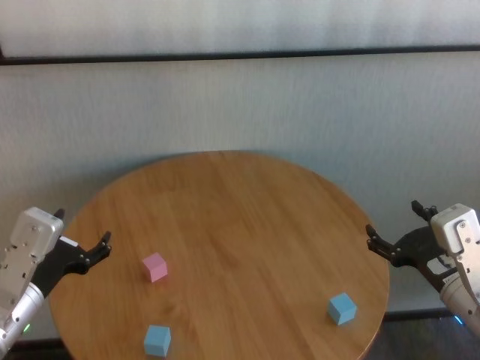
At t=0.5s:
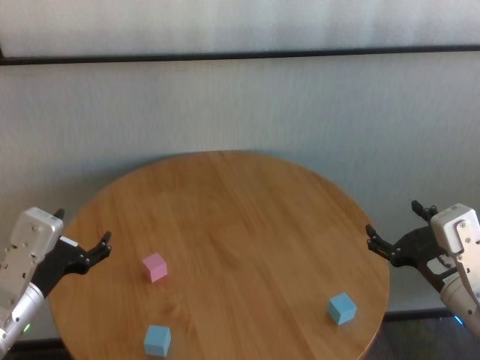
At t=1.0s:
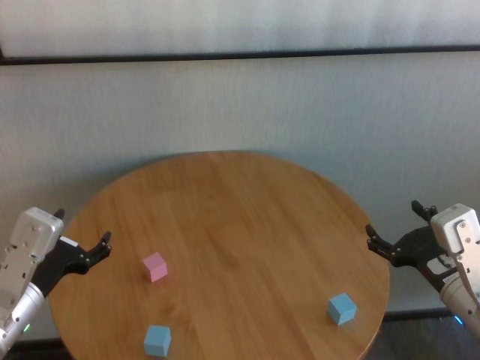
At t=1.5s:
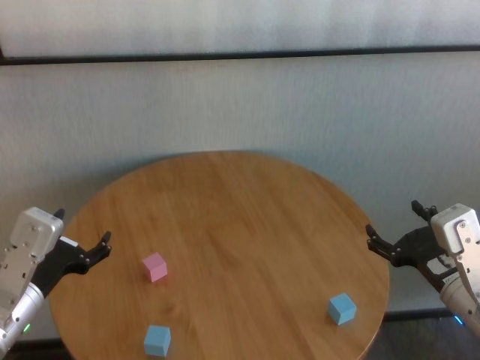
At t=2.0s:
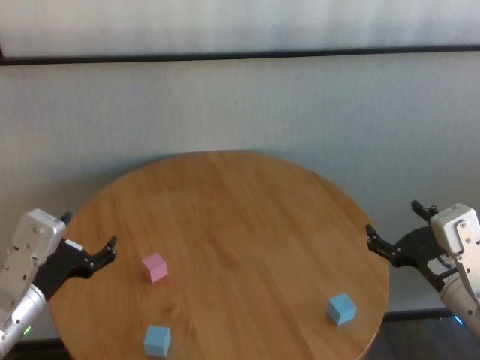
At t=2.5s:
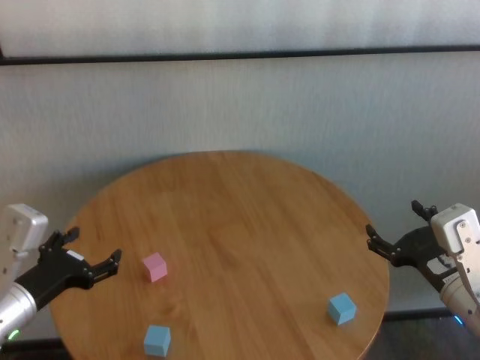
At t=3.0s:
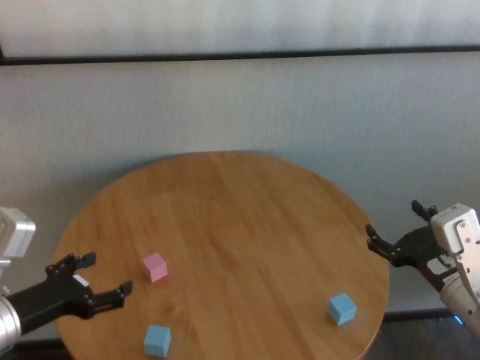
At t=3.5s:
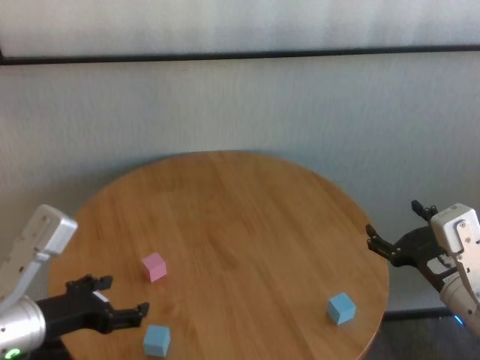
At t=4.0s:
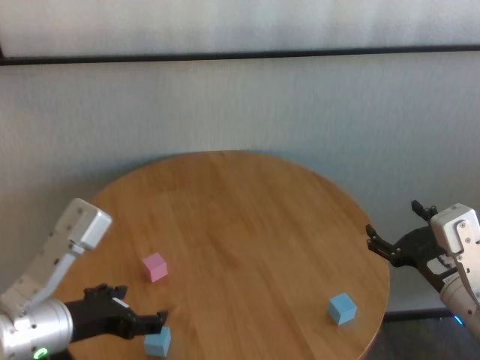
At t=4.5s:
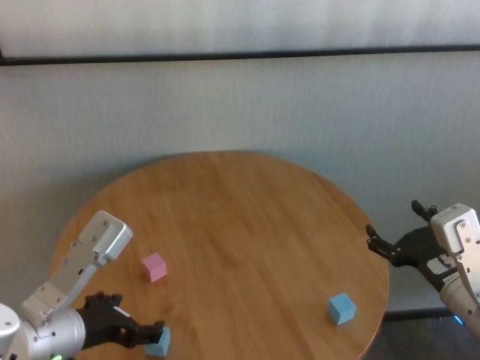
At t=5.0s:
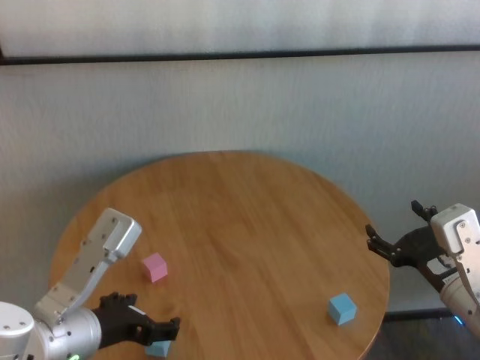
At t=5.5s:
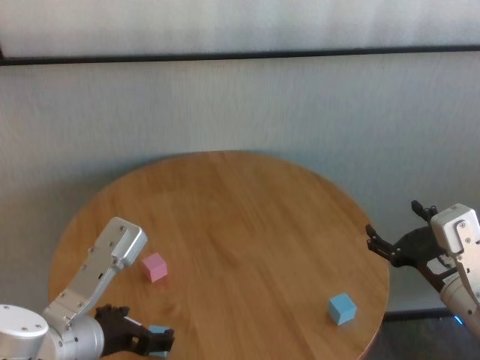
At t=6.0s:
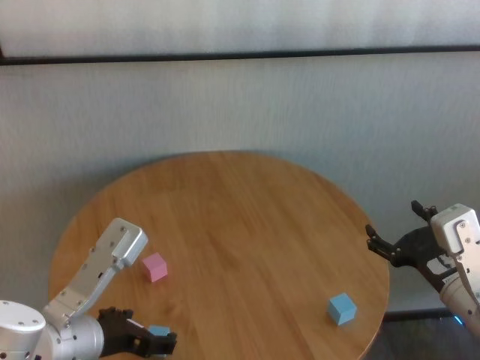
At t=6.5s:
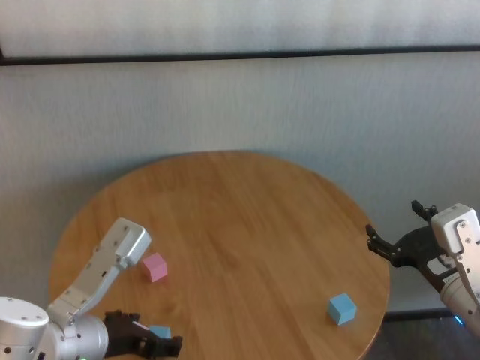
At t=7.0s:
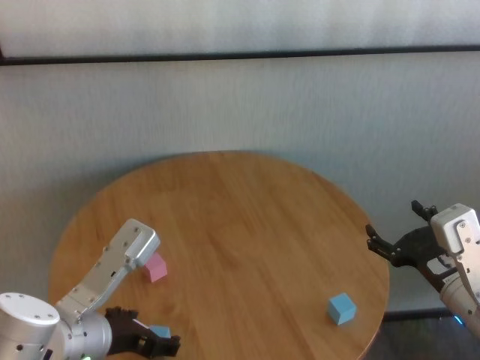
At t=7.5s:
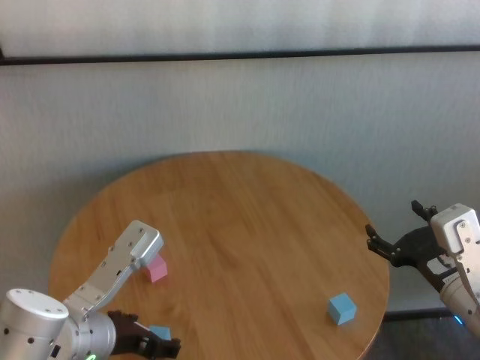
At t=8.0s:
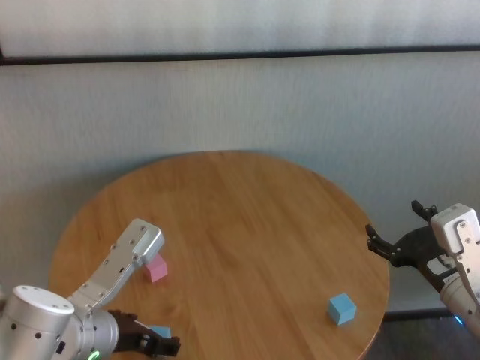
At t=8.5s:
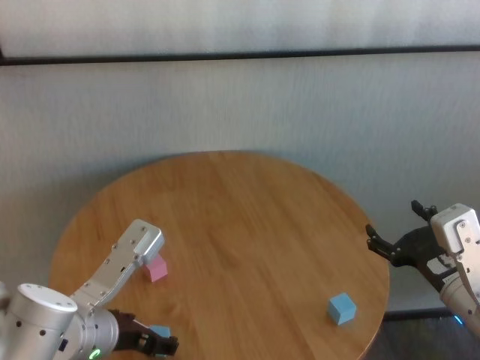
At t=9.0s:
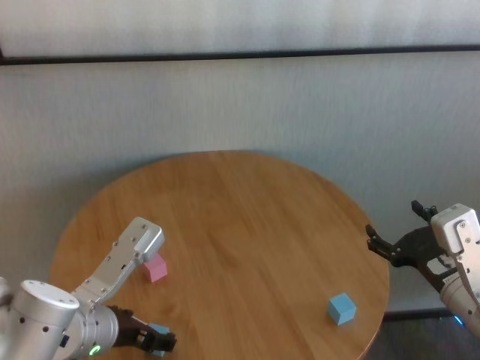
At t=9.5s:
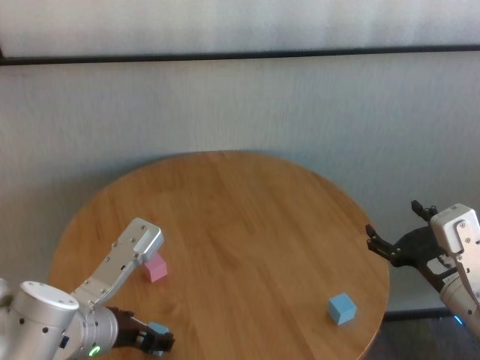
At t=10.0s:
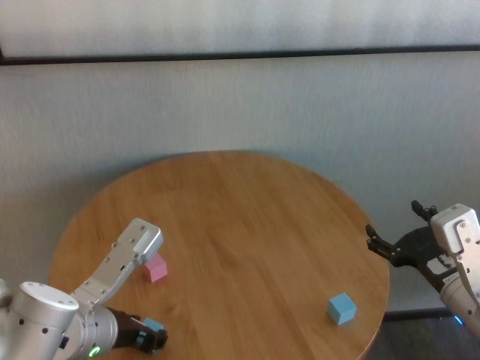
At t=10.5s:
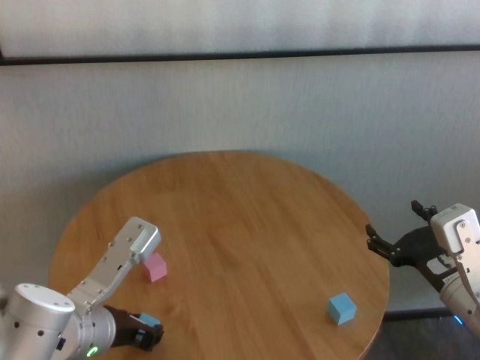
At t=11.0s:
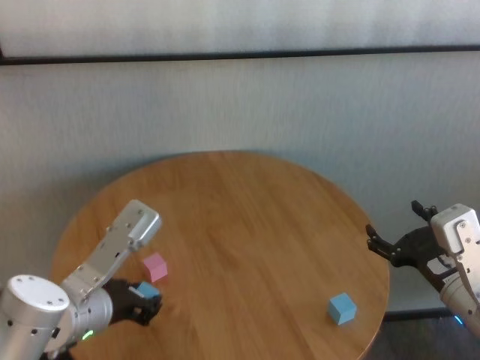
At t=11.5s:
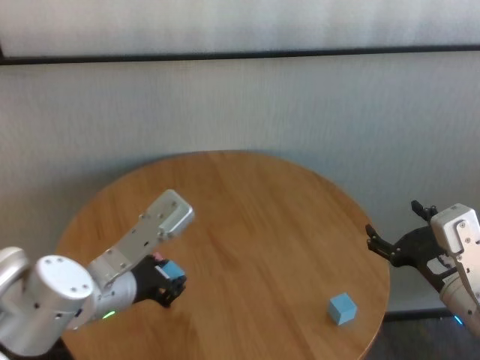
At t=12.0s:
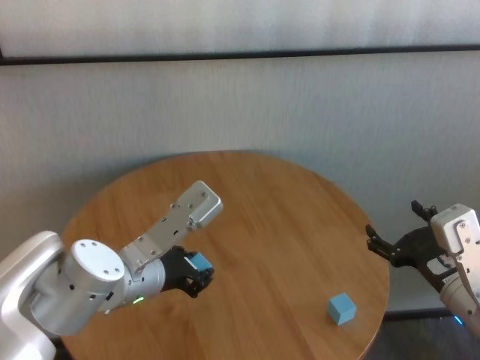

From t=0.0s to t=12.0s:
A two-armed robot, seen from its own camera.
Task of the whole recording: stack building blocks on the table.
Step, from t=0.0s to t=10.0s: Grasp the blue building block with left gripper.

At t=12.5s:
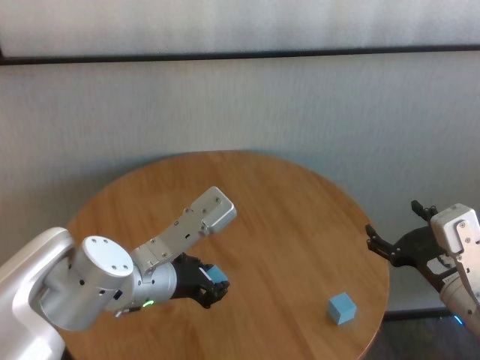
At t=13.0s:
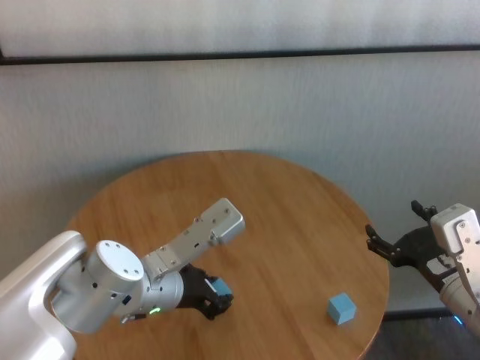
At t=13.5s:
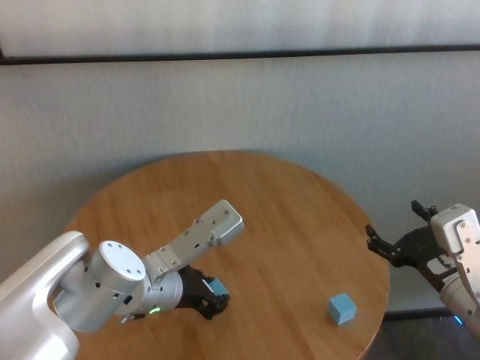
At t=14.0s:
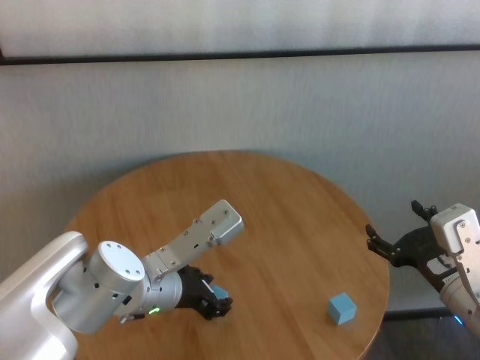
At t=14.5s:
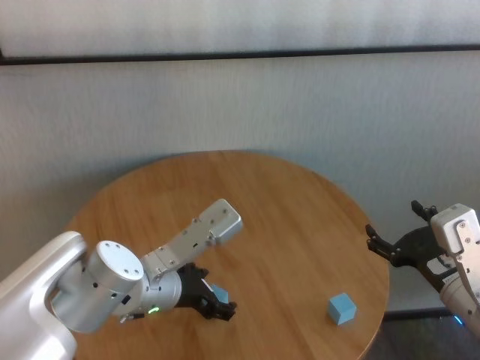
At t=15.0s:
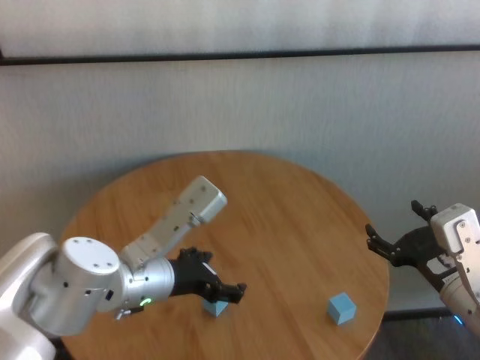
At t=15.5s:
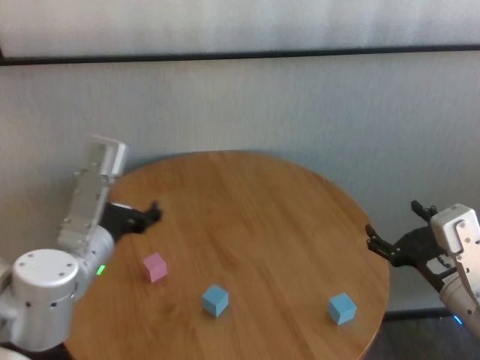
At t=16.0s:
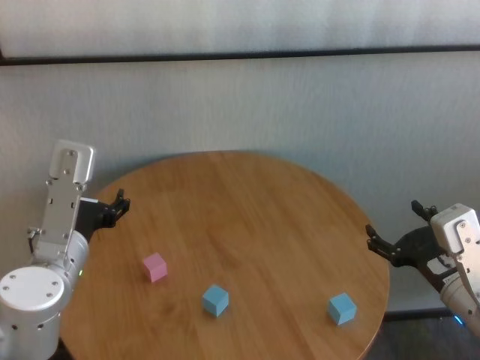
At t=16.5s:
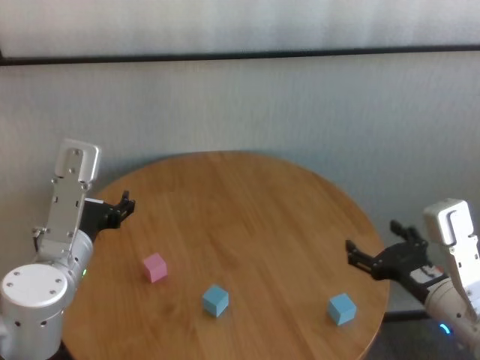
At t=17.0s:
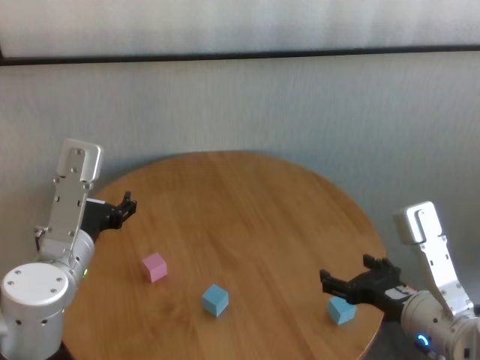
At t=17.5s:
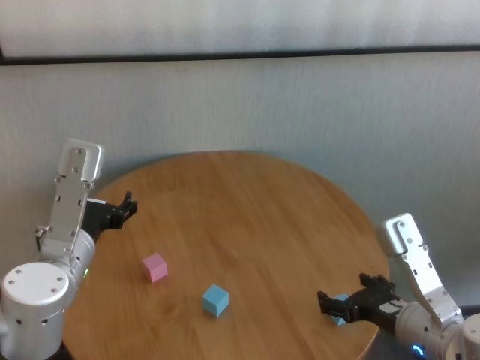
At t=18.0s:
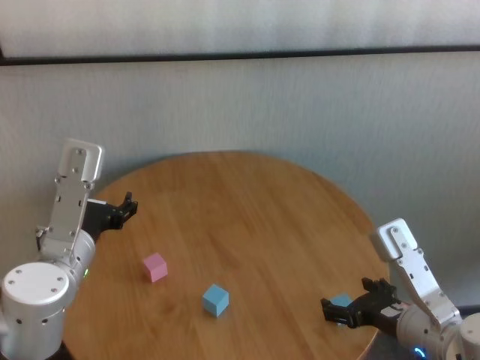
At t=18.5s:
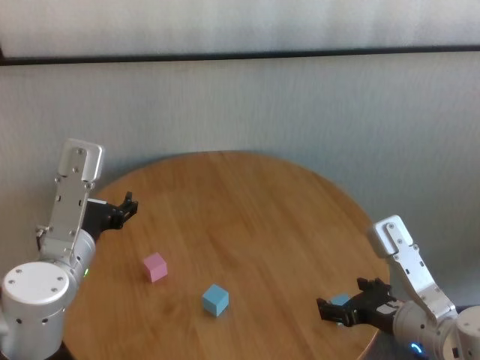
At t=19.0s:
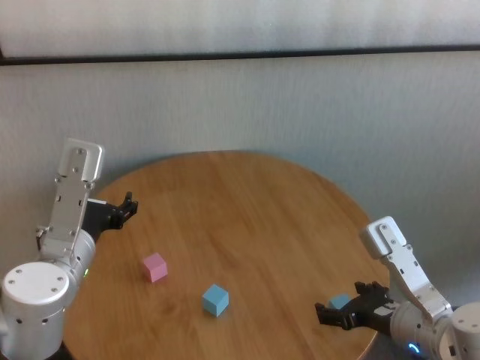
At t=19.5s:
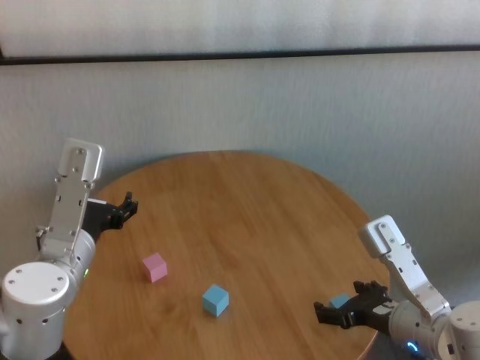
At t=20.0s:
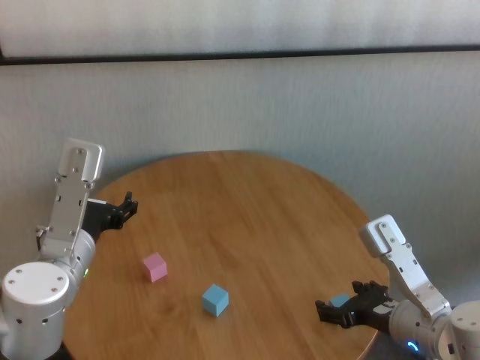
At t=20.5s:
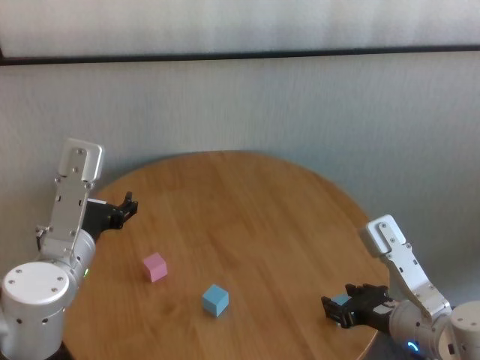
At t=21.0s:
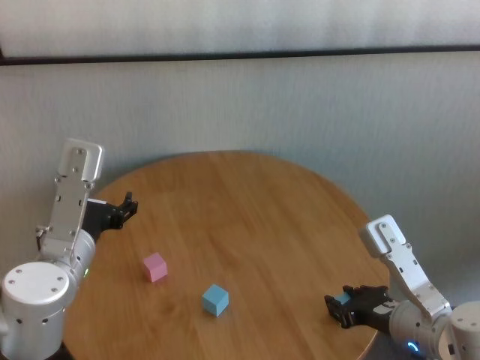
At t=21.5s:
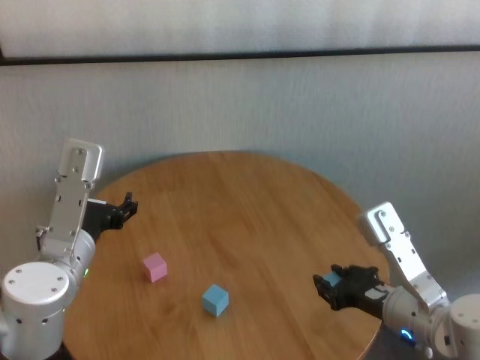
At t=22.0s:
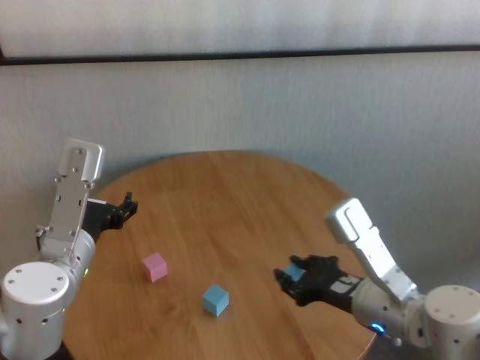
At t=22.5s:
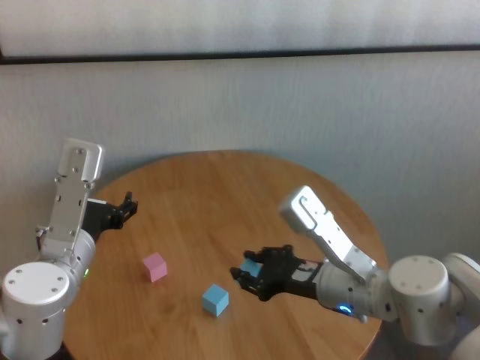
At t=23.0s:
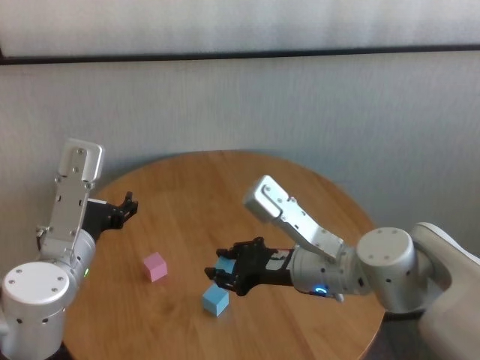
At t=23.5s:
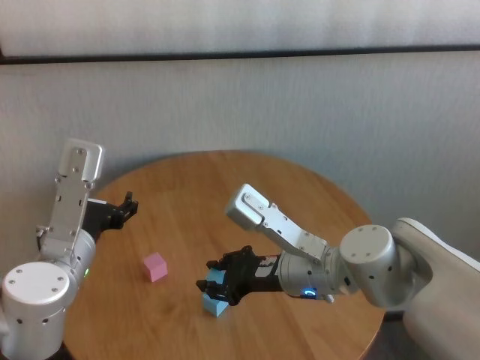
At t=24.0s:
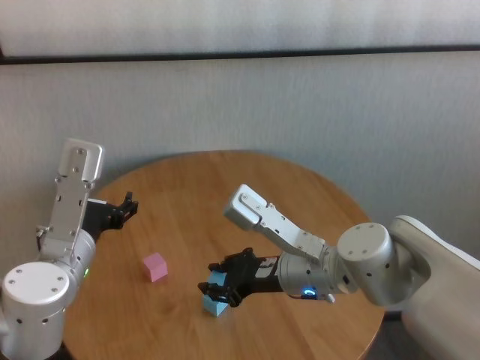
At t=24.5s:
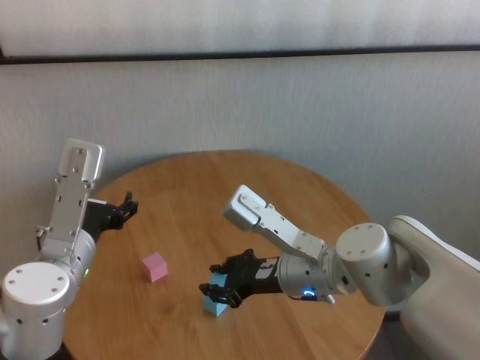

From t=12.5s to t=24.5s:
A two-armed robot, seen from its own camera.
Task of the whole recording: stack building blocks on the table.
Step, from t=12.5s to t=14.5s: Place the blue building block in the center of table with left gripper.
Step, from t=15.0s to t=20.5s: Grasp the blue building block with right gripper.

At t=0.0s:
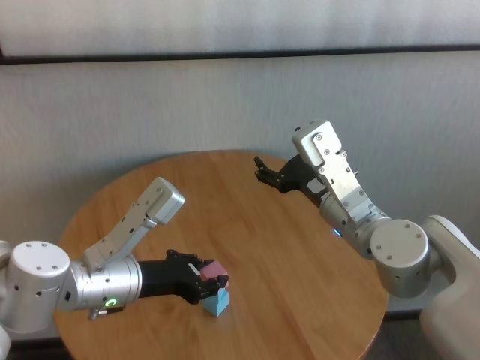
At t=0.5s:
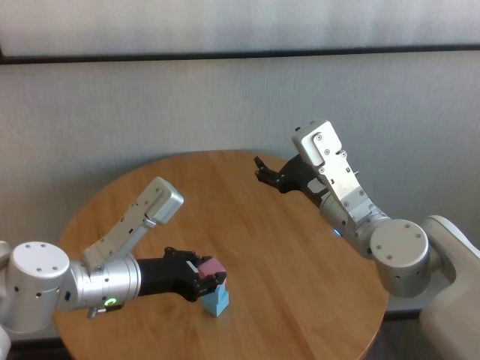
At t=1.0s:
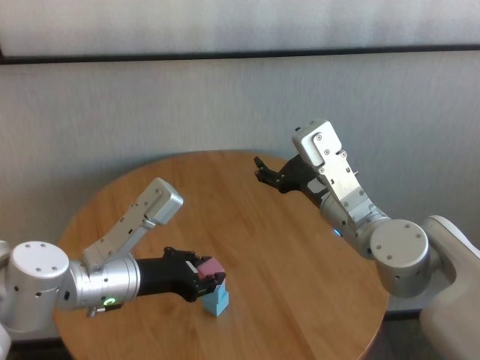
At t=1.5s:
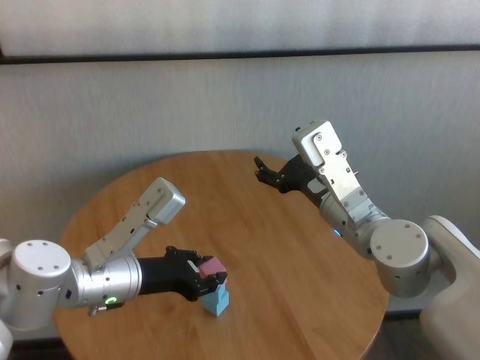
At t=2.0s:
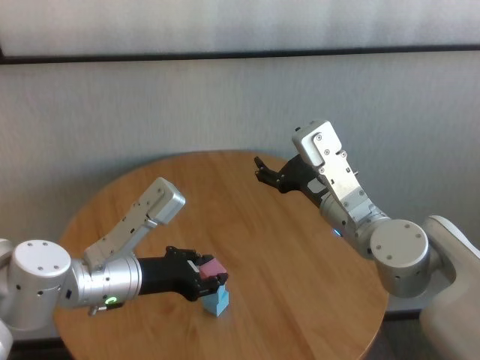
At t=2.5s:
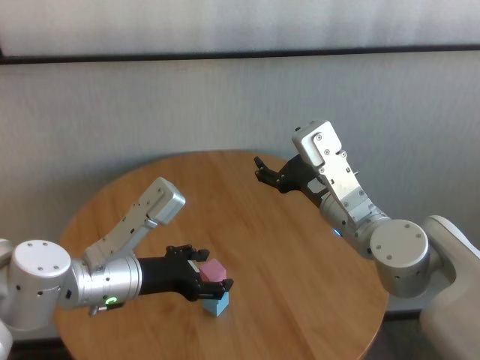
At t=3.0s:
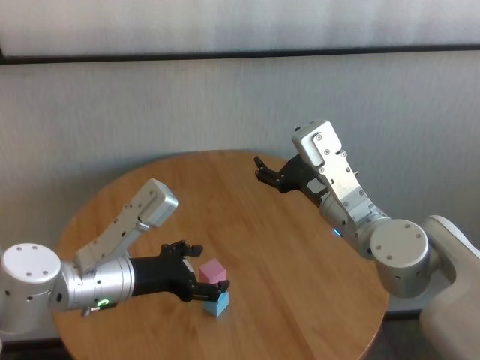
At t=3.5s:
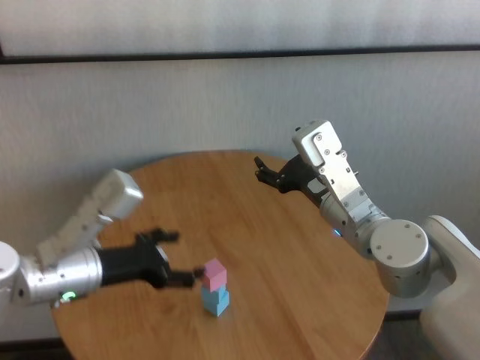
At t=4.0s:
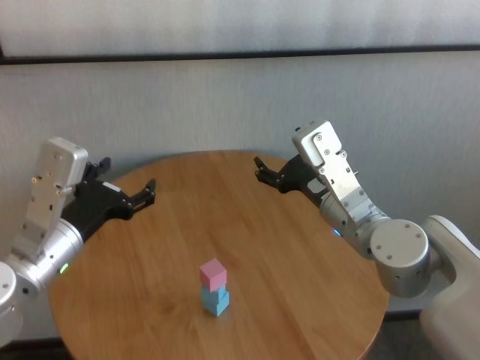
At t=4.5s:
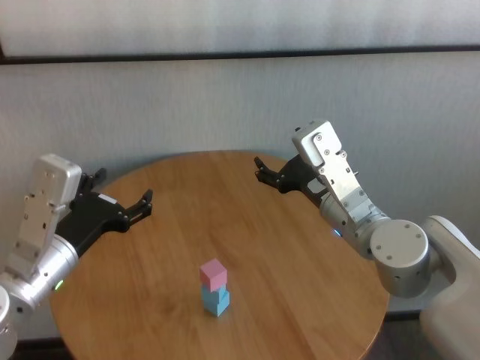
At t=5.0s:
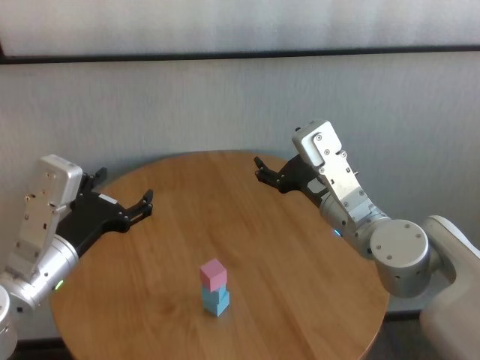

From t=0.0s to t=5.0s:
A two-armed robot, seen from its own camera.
Task of the whole recording: stack building blocks on the table.
Step, from t=0.0s to t=2.5s: Place the pink building block on the blue building blocks with left gripper.
